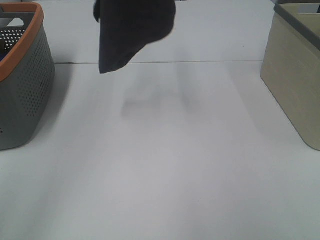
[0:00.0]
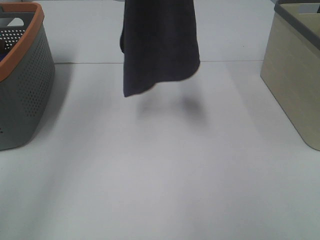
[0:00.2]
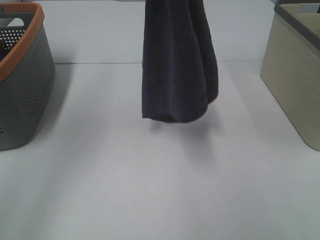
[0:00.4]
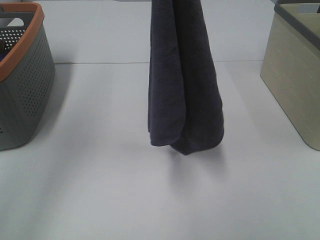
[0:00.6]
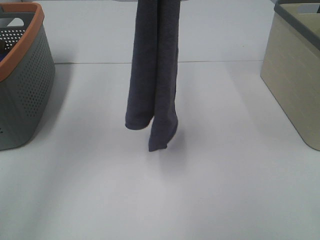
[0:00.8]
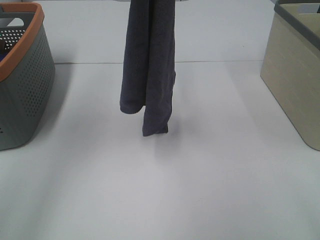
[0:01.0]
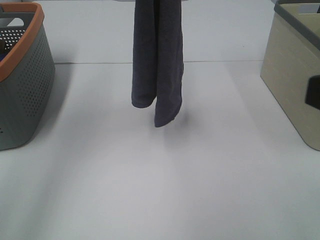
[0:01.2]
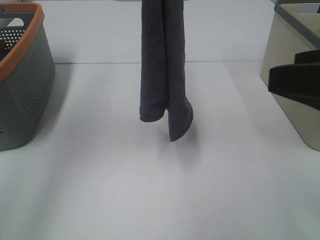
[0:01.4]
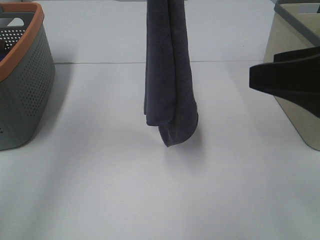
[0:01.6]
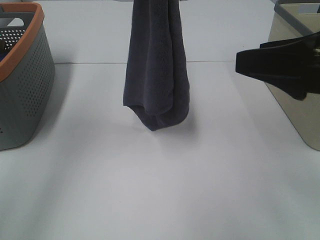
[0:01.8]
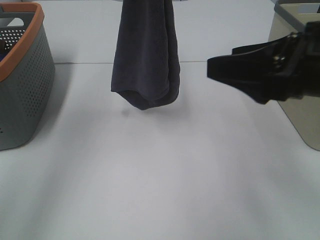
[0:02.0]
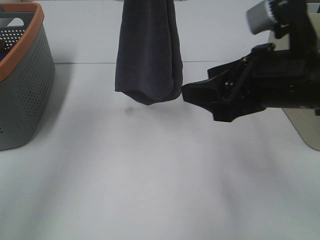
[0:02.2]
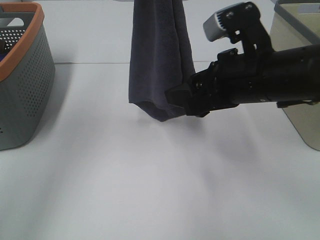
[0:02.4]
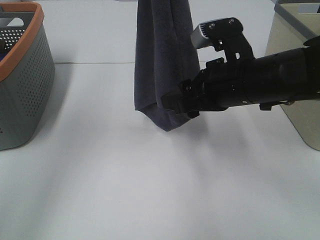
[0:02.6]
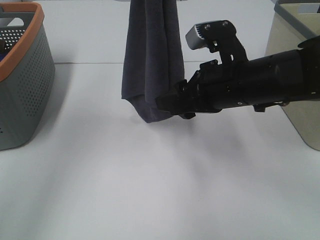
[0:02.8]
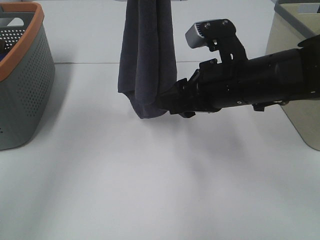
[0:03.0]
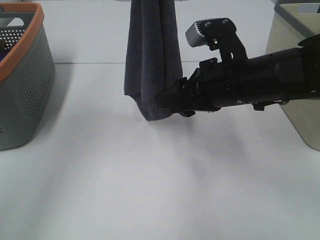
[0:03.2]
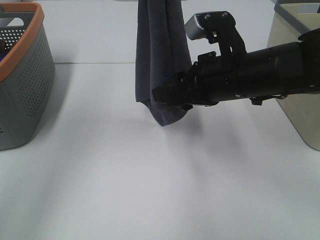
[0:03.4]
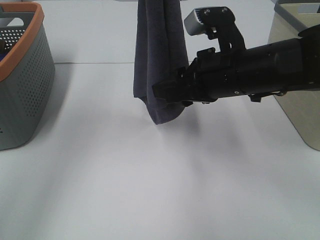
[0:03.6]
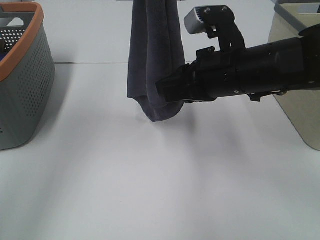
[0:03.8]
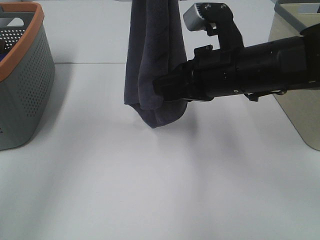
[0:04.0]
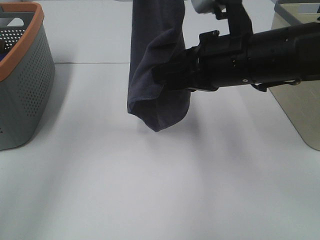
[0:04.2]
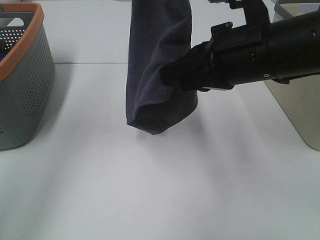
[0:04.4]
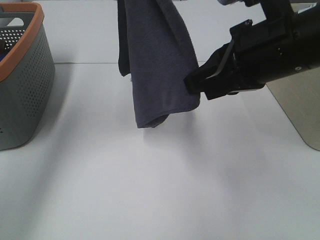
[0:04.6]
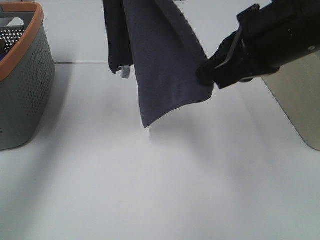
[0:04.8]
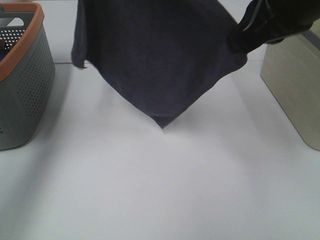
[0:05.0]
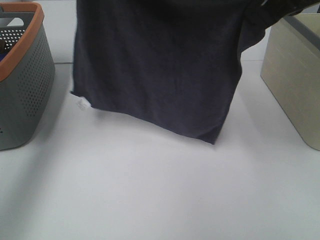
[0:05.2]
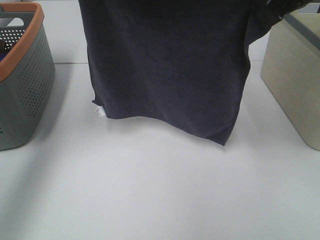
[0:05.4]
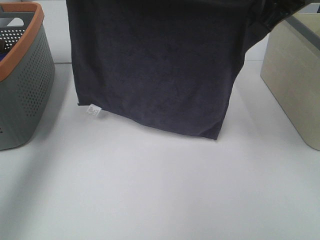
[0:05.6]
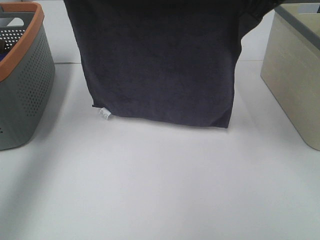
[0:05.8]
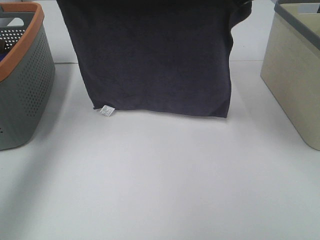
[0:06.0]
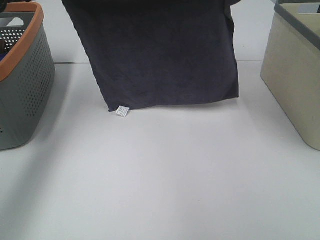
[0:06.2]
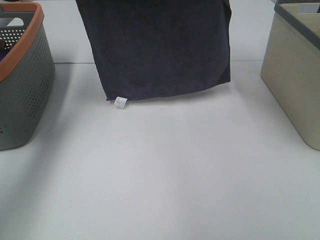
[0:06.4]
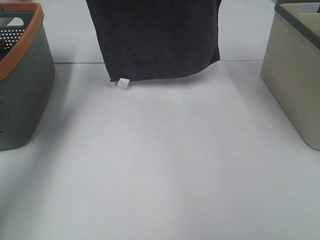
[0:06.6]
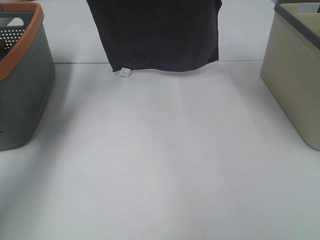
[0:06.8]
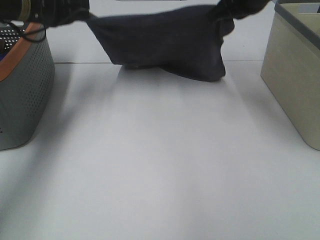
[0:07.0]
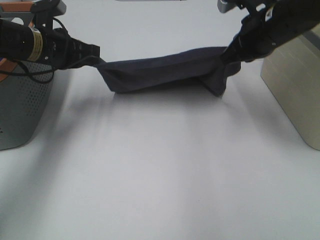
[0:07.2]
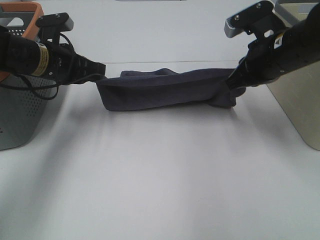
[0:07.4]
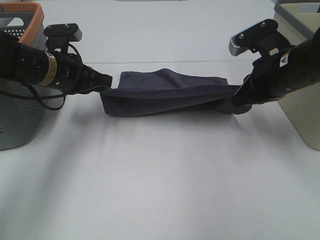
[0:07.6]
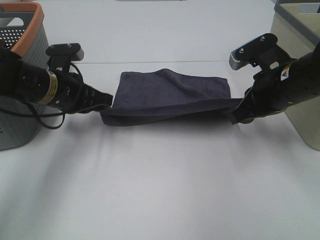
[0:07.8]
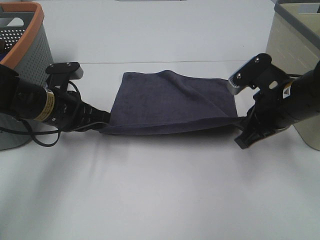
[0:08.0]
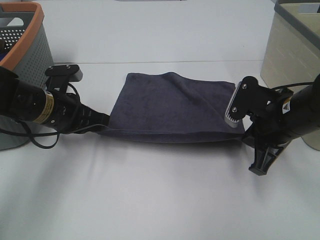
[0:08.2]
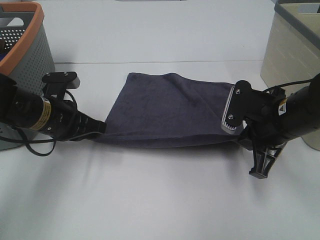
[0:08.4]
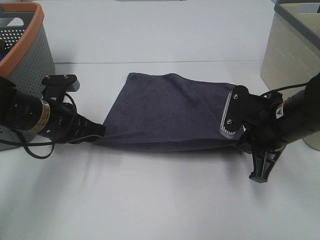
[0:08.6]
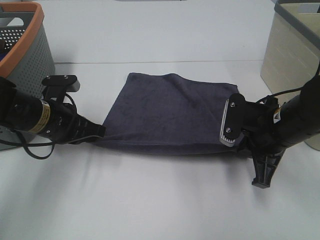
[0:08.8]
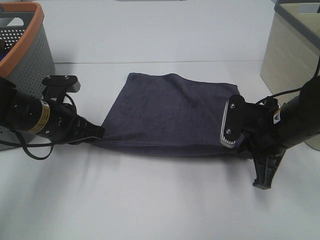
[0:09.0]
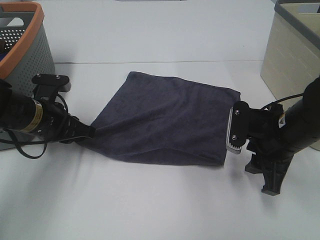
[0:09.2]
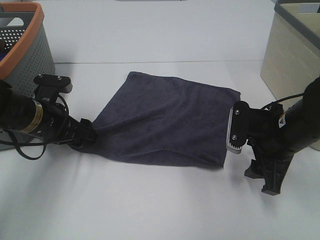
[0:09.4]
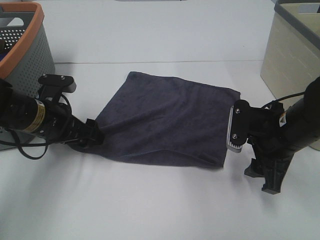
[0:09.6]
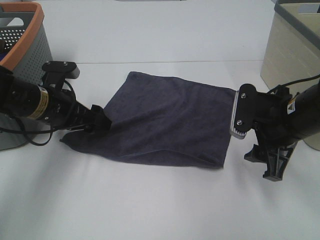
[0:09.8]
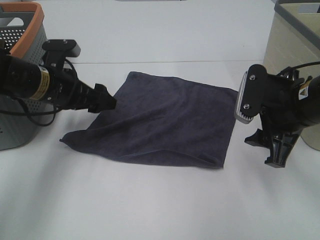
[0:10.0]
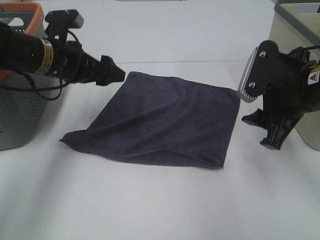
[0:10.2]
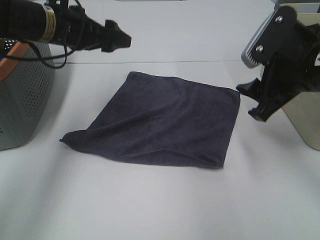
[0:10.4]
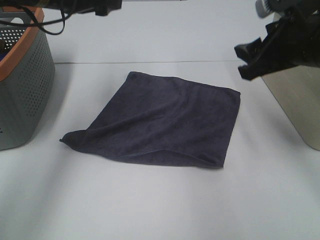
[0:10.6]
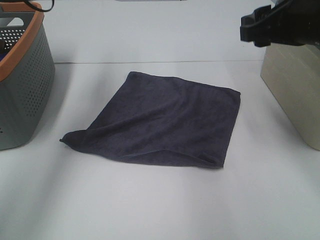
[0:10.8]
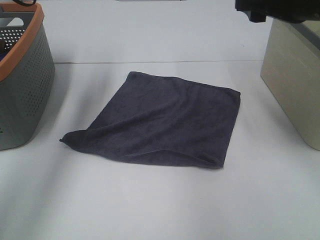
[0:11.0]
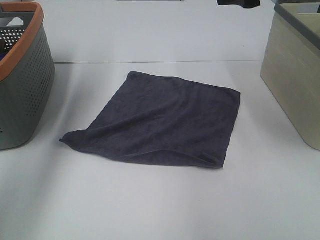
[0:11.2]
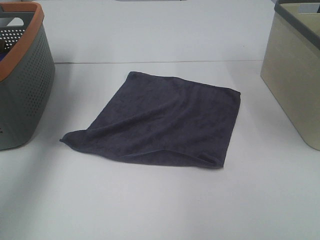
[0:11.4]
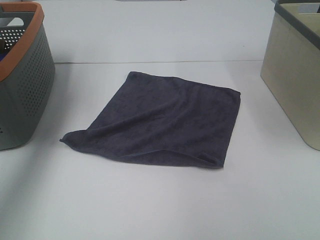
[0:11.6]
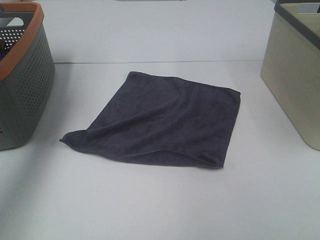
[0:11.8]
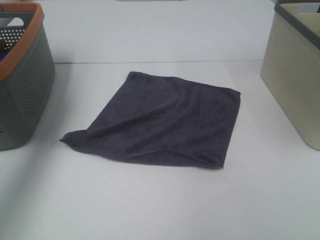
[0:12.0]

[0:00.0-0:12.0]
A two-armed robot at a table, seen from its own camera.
Task of the whole recording: Remove the towel and place it.
Step, 0:00.0 to 0:03.4: Right hand: grab a corner of the grey towel and straighten it.
Step, 0:03.6 to 0:05.6: Right hand: spread the grey towel flat on the table.
Step, 0:03.6 to 0:06.0: Left hand: spread the grey towel flat on the table.
0:00.0 to 0:01.6: The right gripper goes approximately 15 cm forward and to the left.
0:01.6 to 0:03.0: The right gripper travels forward, to the left and downward by approximately 20 cm.
0:03.0 to 0:04.4: The right gripper shifts roughly 5 cm upward, and closes its fingers.
0:04.4 to 0:06.0: The right gripper travels upward and forward by some 15 cm, while the left gripper moves downward and to the left, approximately 15 cm.
0:06.0 to 0:07.6: The two grippers go some 15 cm downward.
0:07.6 to 0:09.0: The left gripper is displaced backward and downward by about 10 cm. Meanwhile the right gripper is displaced downward by some 5 cm.
0:09.0 to 0:10.4: The left gripper heads upward and forward, covering roughly 15 cm, and opens; the right gripper shifts about 10 cm upward, and opens its fingers.
0:10.4 to 0:12.0: The right gripper goes about 20 cm upward, while the left gripper travels upward and to the left by some 20 cm.

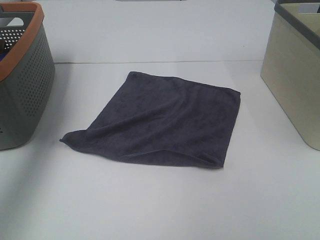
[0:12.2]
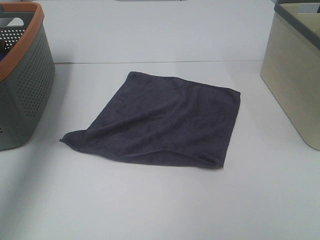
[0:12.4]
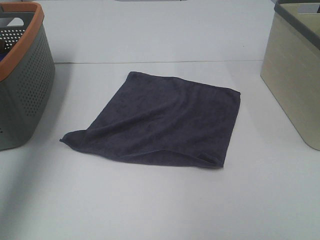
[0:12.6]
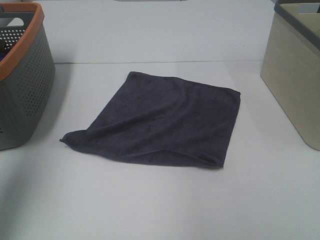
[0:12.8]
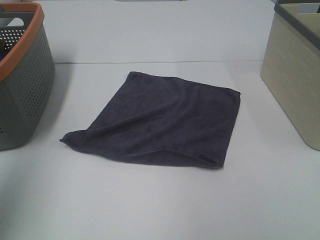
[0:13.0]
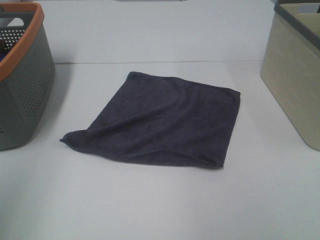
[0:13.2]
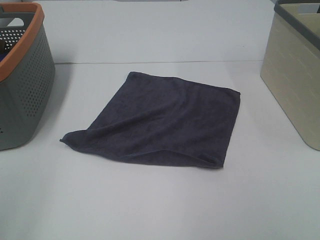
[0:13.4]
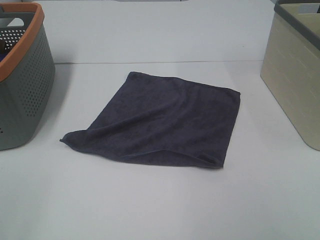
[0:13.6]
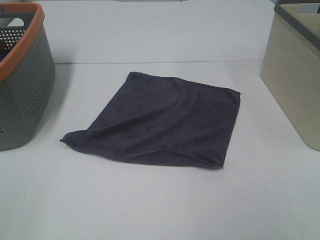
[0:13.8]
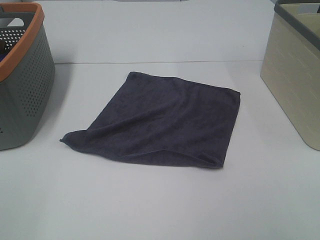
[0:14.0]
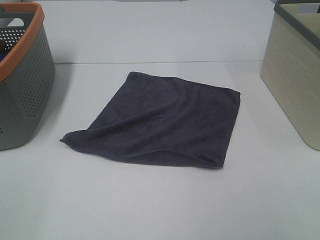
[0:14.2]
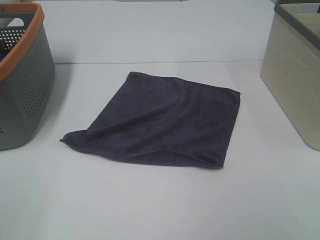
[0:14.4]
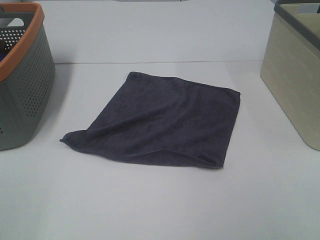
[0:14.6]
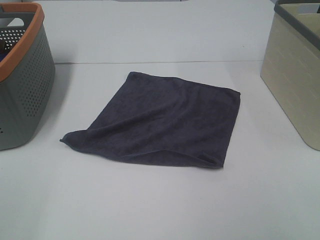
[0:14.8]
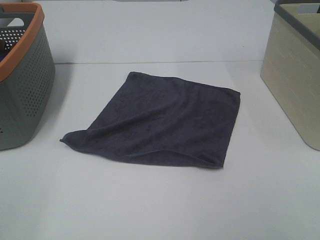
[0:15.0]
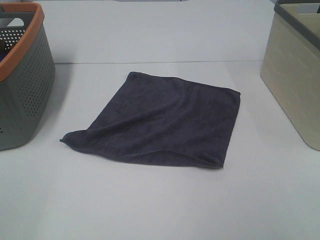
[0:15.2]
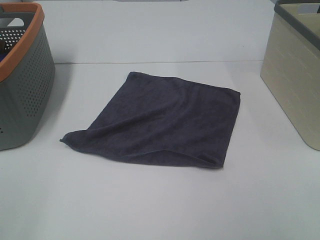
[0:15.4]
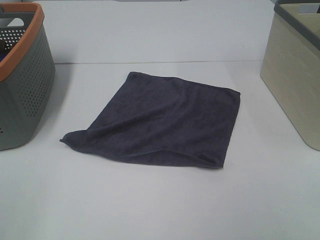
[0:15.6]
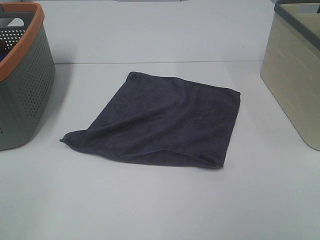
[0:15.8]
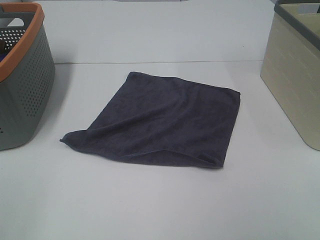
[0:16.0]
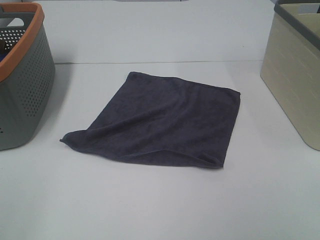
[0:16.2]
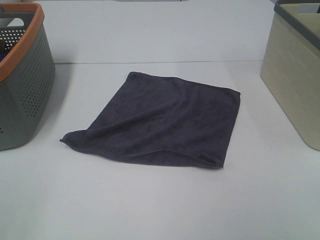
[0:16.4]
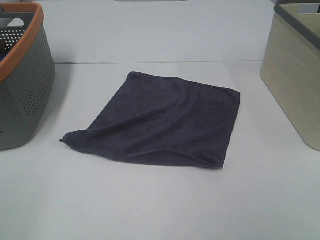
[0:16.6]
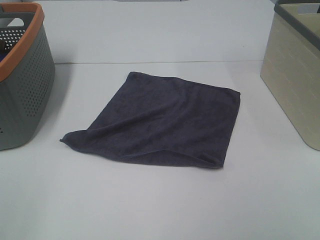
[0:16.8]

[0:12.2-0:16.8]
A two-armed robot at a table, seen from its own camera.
Task of the whole recording: Remove the towel and place it.
0:12.2 to 0:13.8: The left gripper is displaced backward by some 40 cm.

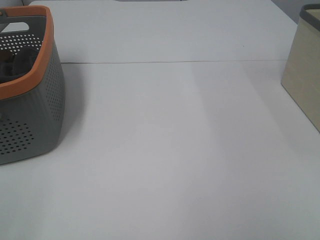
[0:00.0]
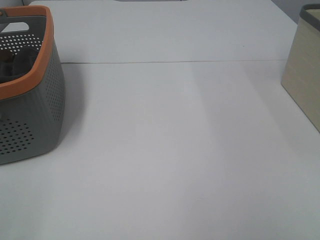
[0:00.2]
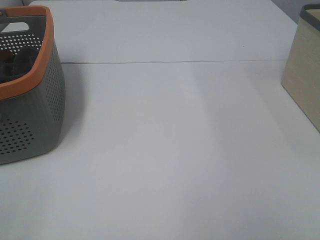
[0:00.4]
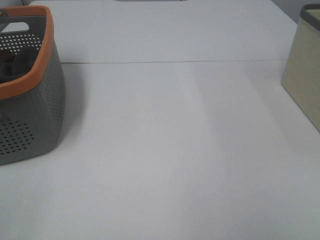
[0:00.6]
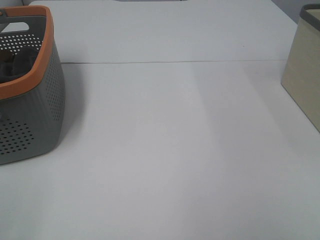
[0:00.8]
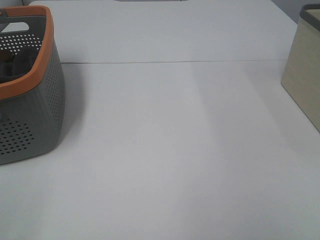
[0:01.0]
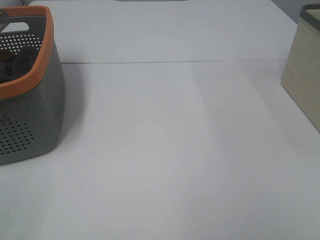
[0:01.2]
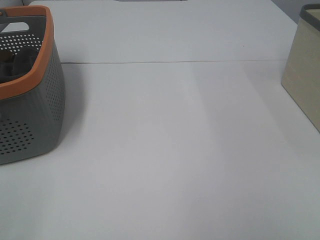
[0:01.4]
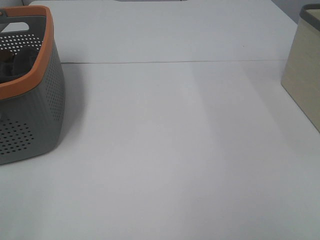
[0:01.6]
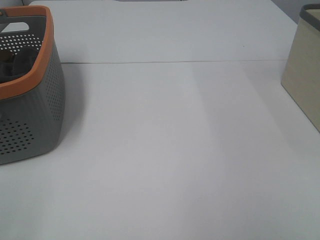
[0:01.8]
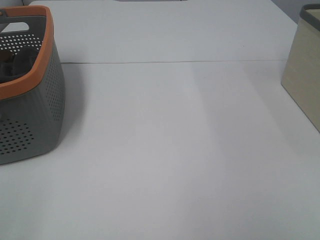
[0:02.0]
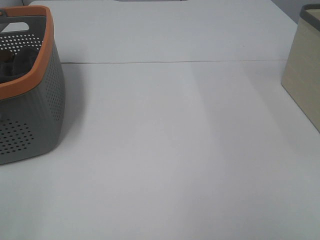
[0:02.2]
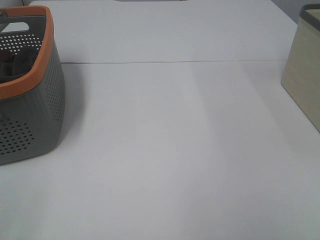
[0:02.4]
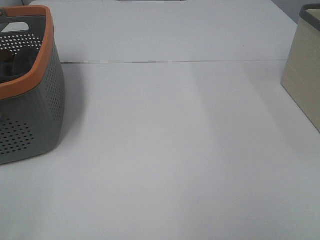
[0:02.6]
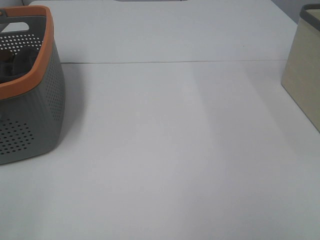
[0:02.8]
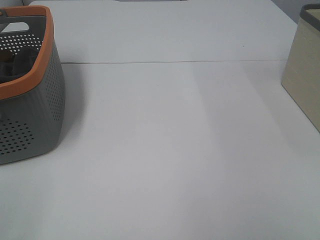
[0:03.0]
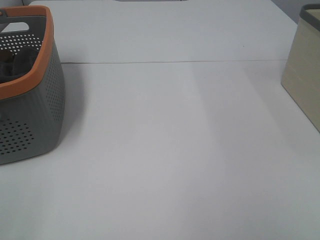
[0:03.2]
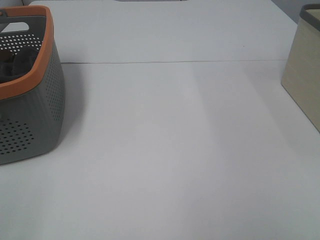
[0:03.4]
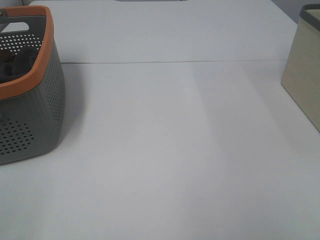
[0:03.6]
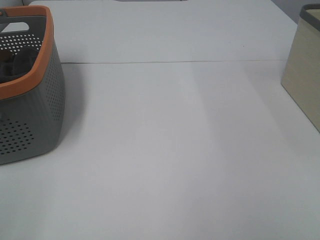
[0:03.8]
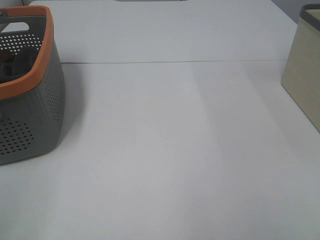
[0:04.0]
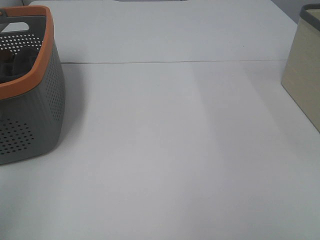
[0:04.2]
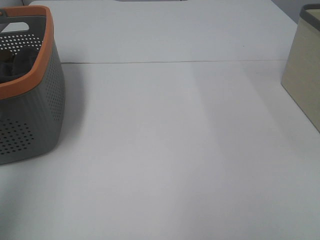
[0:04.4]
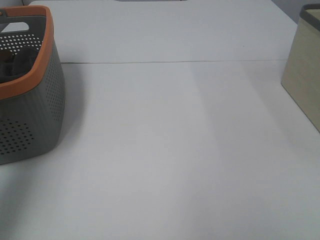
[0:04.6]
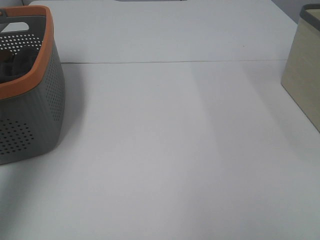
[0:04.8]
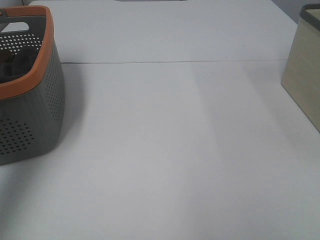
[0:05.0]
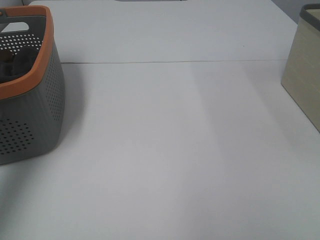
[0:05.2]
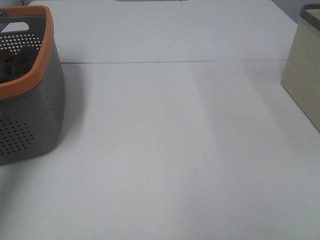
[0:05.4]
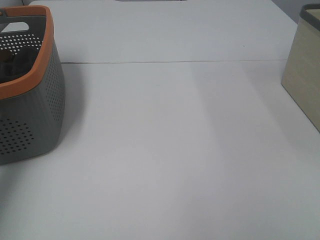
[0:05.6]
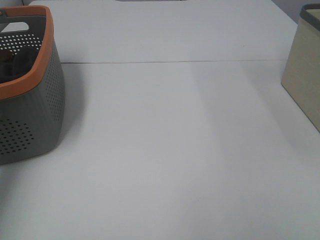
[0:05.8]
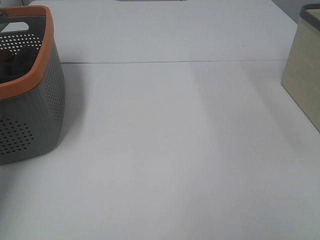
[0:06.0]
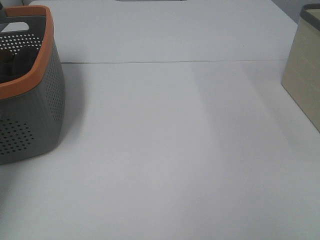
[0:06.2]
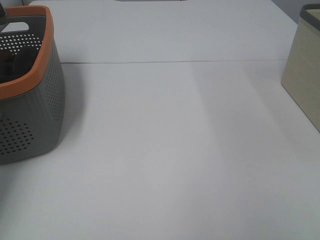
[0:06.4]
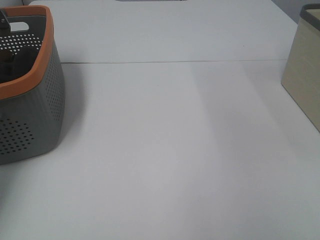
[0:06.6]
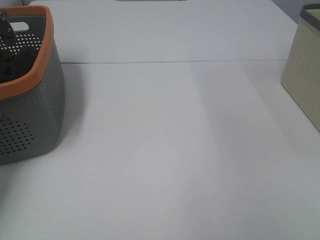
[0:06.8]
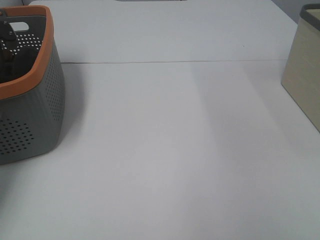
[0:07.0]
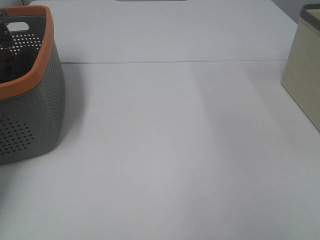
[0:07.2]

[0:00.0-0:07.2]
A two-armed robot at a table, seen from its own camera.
Task of the whole recording: Remove the towel and place it.
0:00.0 to 0:02.8: Both grippers stay about where they are.
0:02.8 to 0:04.4: The left gripper travels upward and forward by roughly 20 cm.
0:04.4 to 0:05.8: The left gripper heads forward, covering approximately 30 cm.
